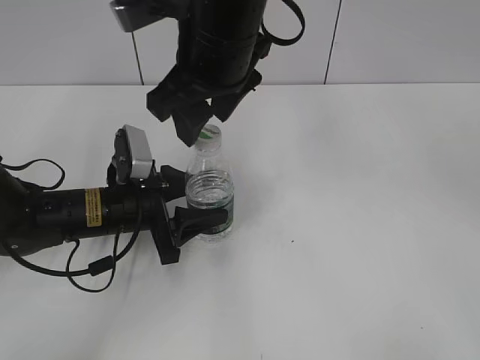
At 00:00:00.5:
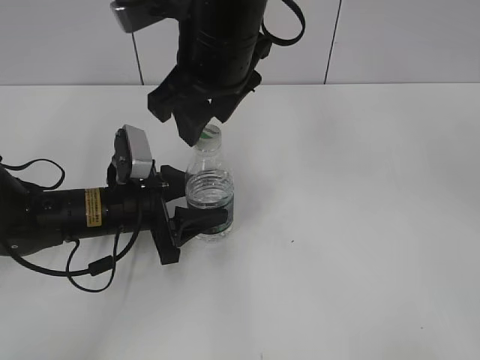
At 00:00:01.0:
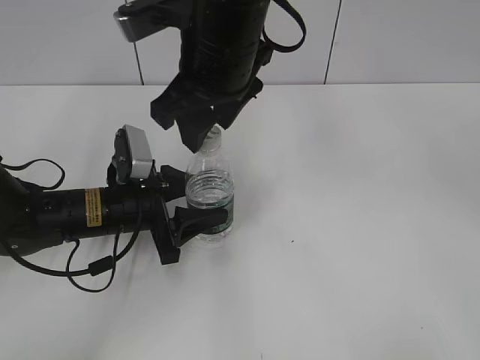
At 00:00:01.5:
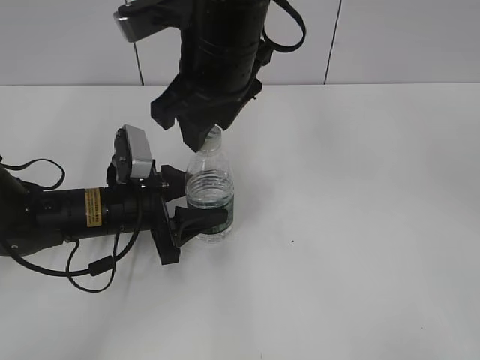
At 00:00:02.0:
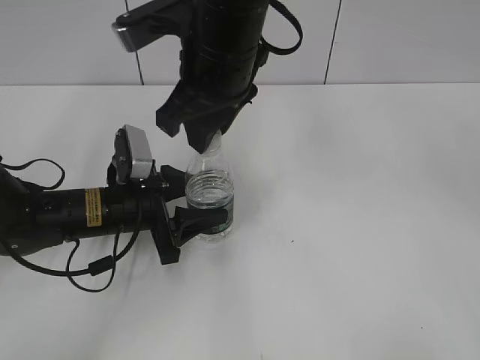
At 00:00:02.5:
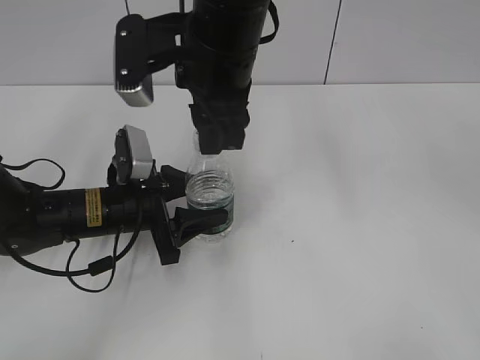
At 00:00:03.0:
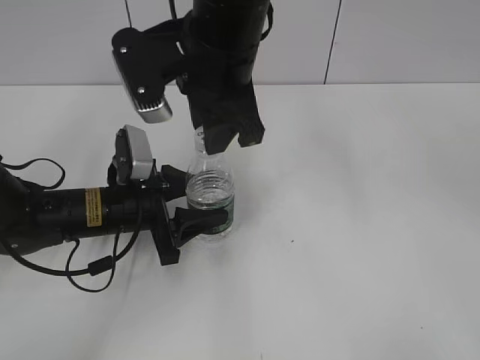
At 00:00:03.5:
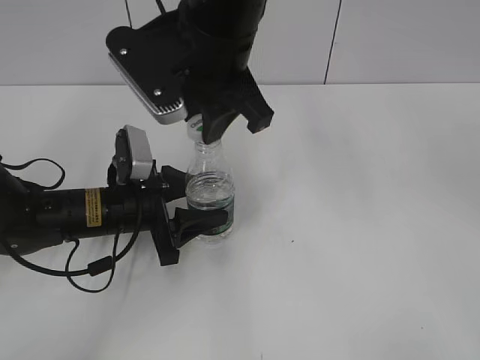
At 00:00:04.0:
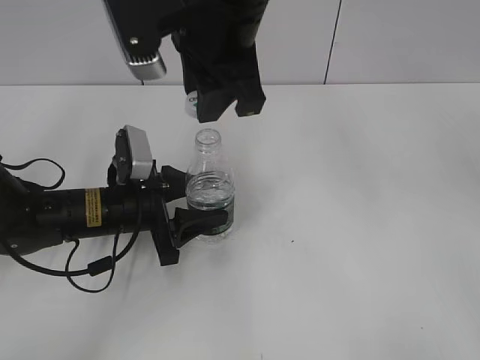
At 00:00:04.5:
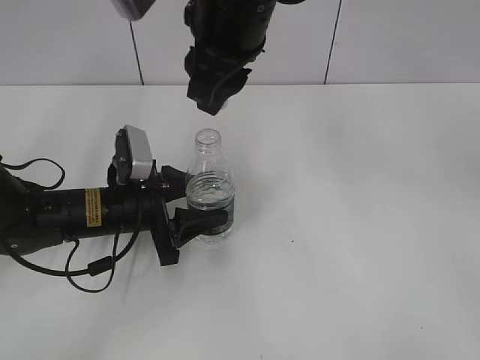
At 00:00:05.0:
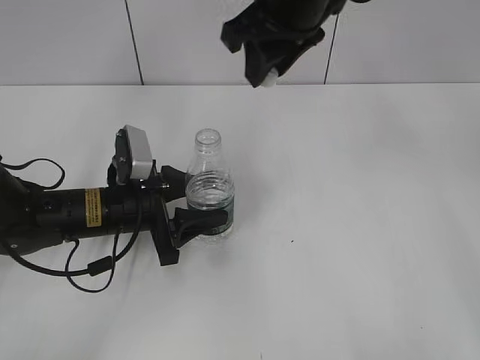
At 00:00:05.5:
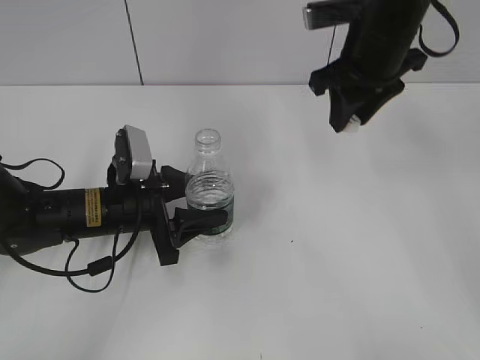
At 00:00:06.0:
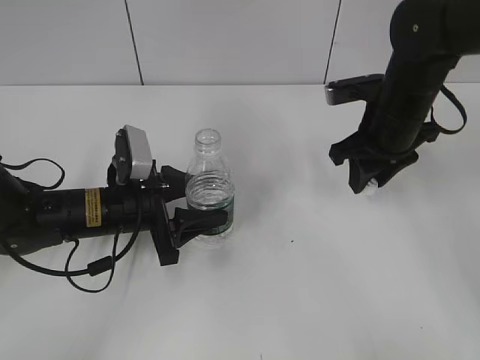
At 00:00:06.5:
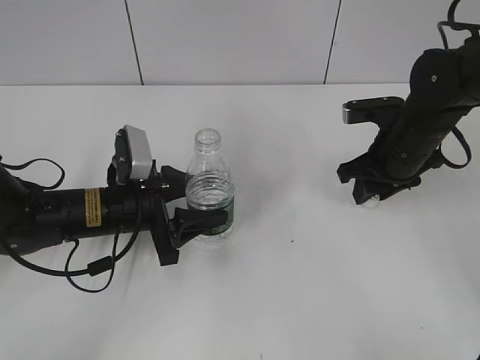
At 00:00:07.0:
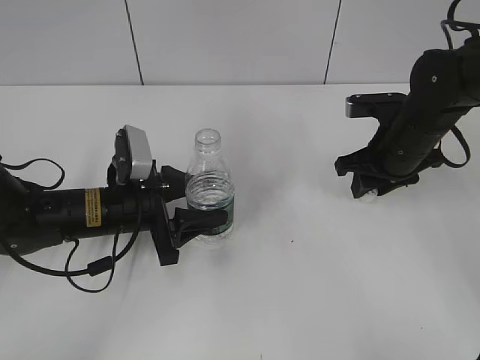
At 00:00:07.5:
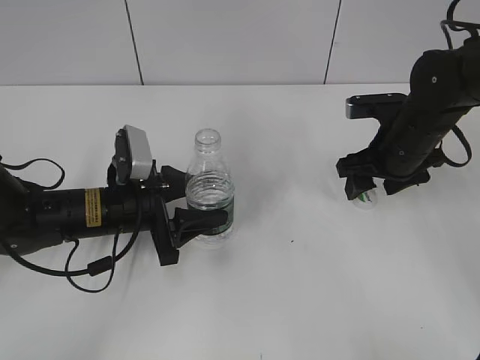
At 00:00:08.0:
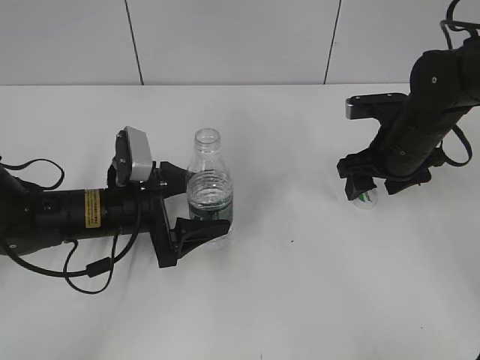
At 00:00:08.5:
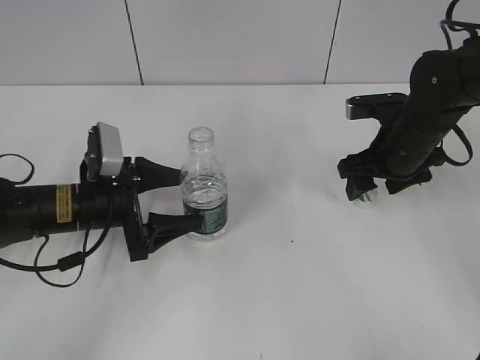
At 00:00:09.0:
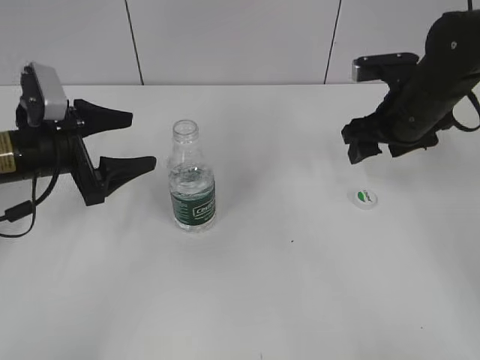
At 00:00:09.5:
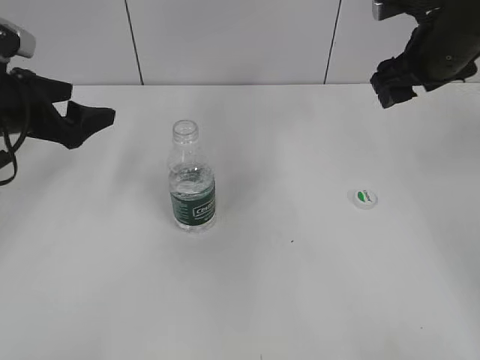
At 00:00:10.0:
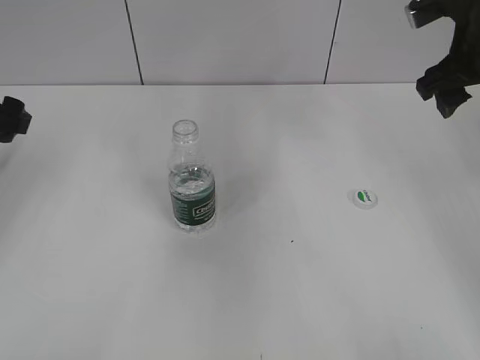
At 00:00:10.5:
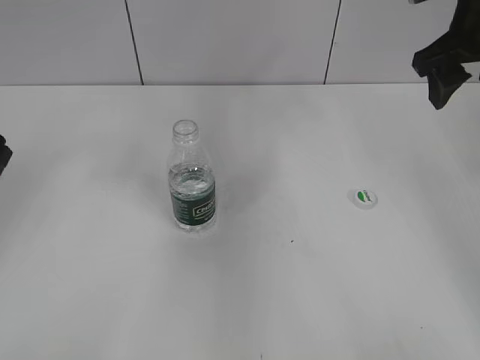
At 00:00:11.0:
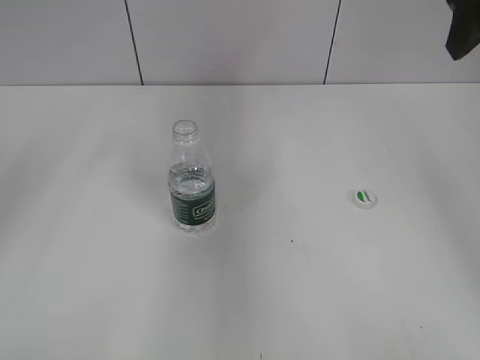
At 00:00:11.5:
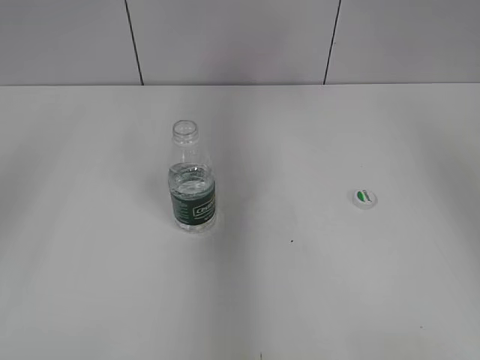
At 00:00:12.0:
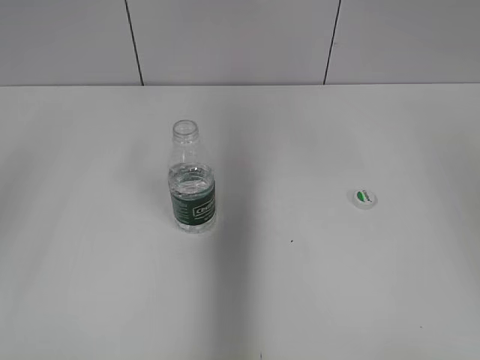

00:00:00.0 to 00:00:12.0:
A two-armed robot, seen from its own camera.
Step, 00:00:00.0 to 00:00:04.0: Unscrew the bottle cap with the right gripper while holding the bottle with the left gripper.
Step, 00:00:04.5 to 00:00:07.0: Place the bottle cap on the table with the right gripper.
Step, 00:00:07.5 to 00:00:08.5: Place the bottle on the table with the left gripper.
00:00:00.0 to 00:00:02.0: The right gripper closes up.
00:00:04.0 to 00:00:06.0: The right gripper travels to the right and downward by roughly 25 cm.
00:00:06.0 to 00:00:08.0: The right gripper opens; the left gripper opens up.
00:00:08.0 to 00:00:10.0: The right gripper travels upward by roughly 15 cm. Meanwhile the left gripper goes roughly 20 cm to the left and upward.
00:00:10.0 to 00:00:12.0: The left gripper heads upward and backward, covering some 20 cm, while the right gripper goes some 20 cm backward, upward and to the right.

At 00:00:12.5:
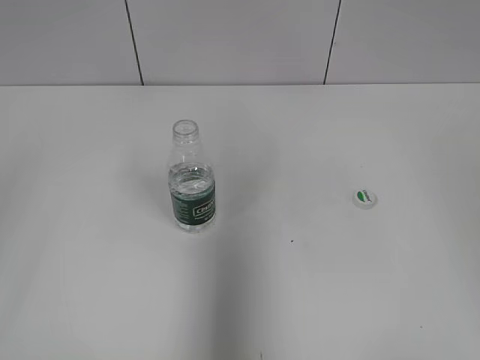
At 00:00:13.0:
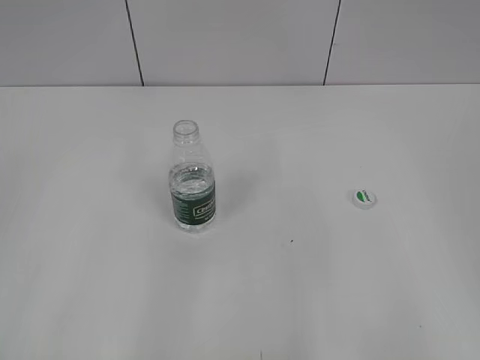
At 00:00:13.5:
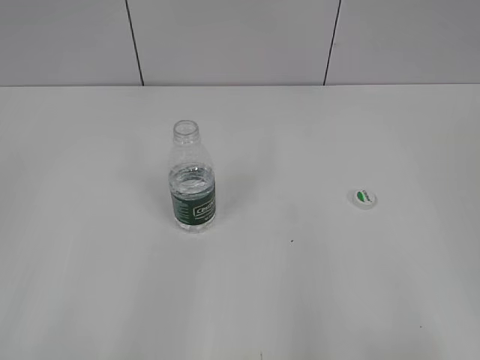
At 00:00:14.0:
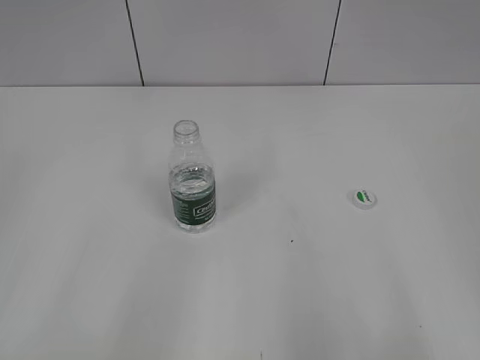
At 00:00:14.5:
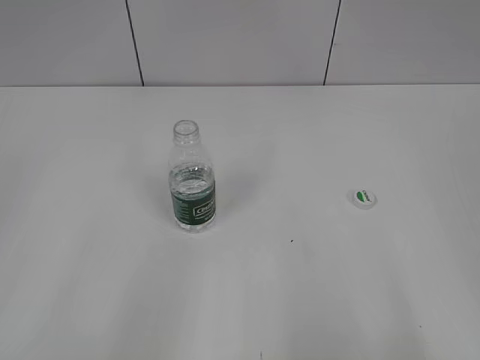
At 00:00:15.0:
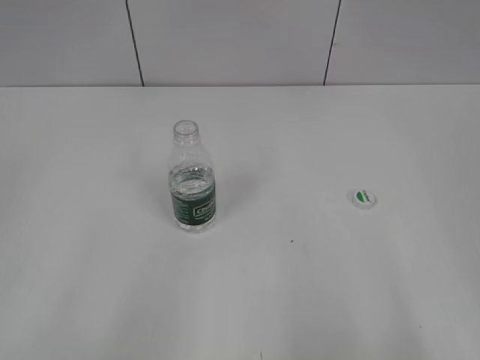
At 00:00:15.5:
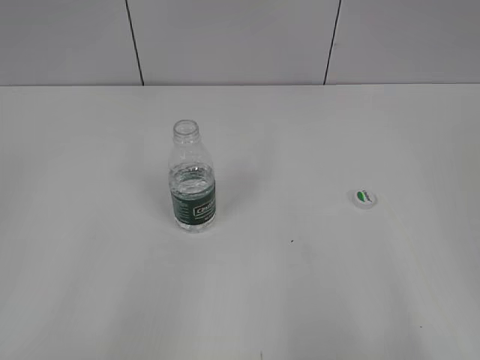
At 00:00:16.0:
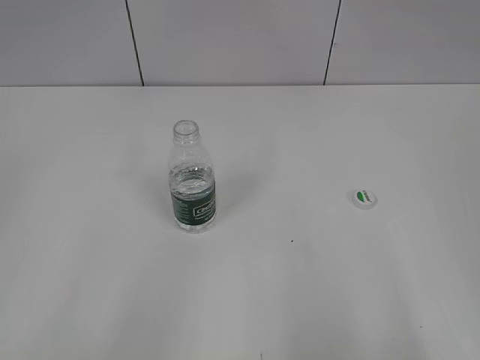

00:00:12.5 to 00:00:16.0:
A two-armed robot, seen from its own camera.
00:00:12.5 to 00:00:14.5: The grippers both shift backward and downward by approximately 15 cm.
00:00:14.5 to 00:00:16.0: The two grippers keep their place.

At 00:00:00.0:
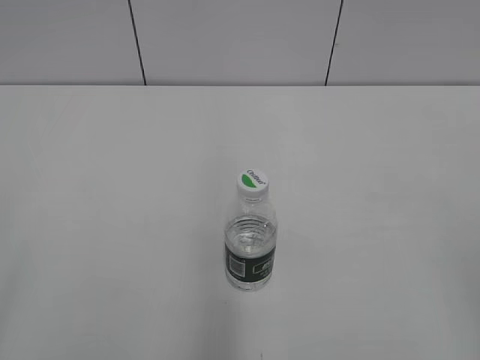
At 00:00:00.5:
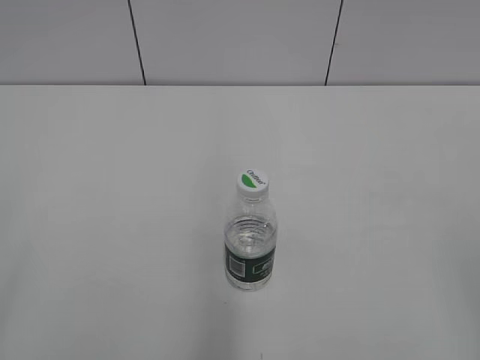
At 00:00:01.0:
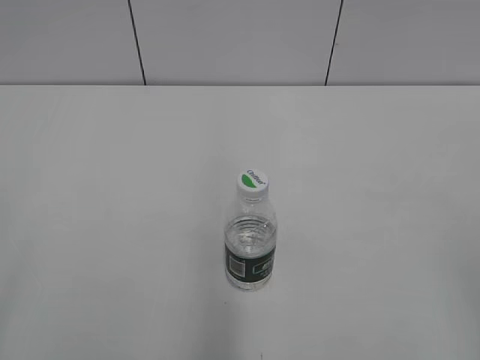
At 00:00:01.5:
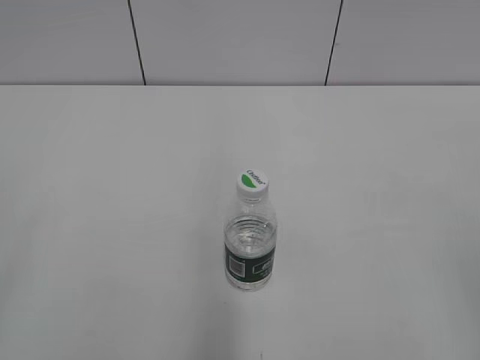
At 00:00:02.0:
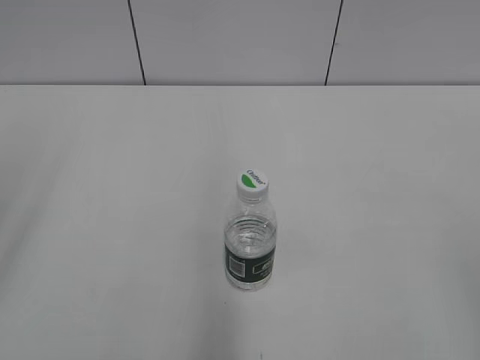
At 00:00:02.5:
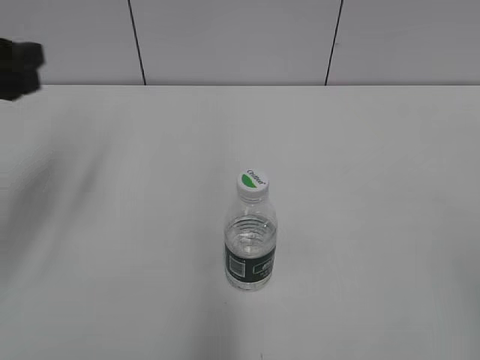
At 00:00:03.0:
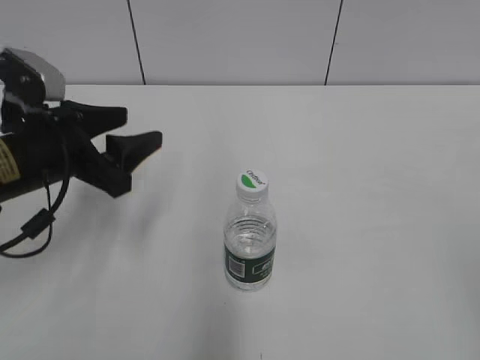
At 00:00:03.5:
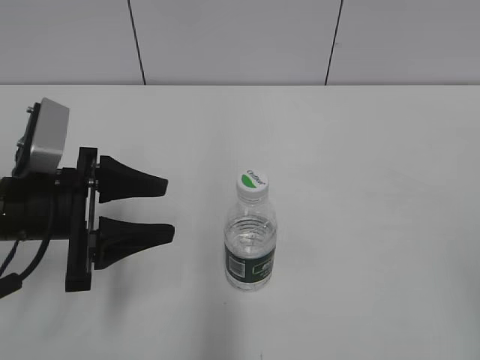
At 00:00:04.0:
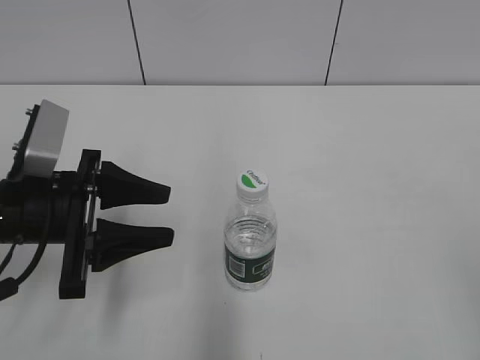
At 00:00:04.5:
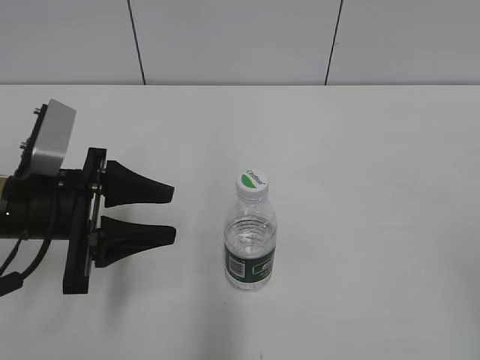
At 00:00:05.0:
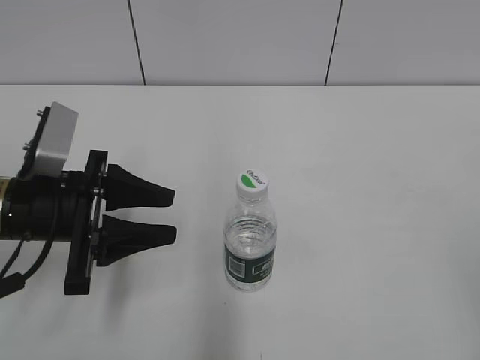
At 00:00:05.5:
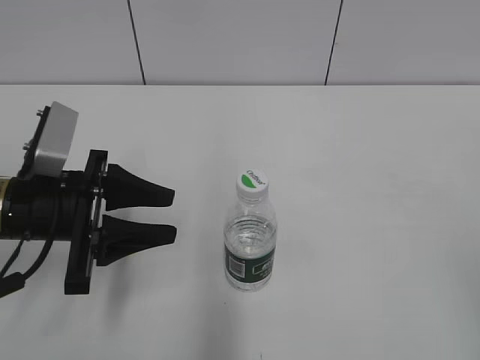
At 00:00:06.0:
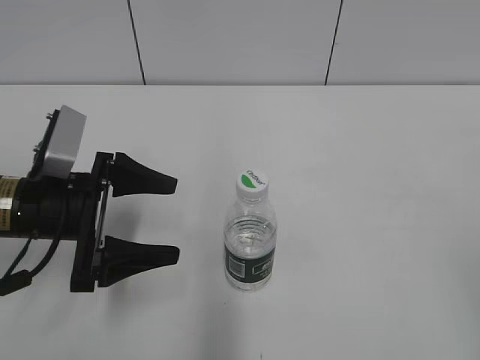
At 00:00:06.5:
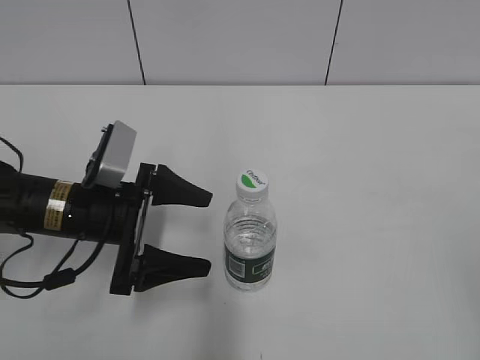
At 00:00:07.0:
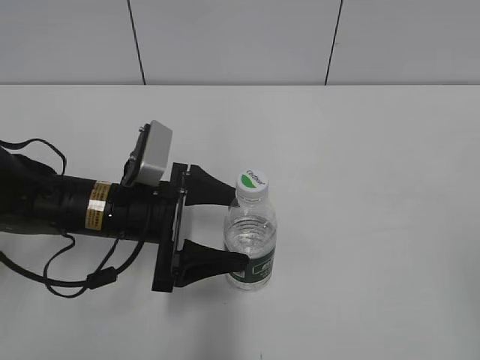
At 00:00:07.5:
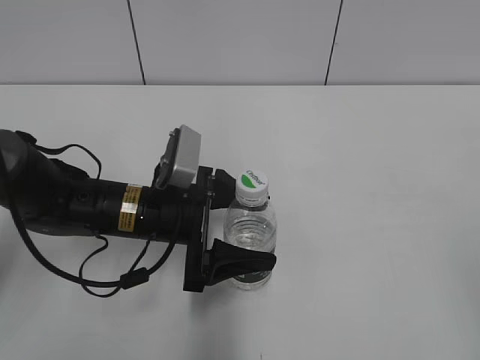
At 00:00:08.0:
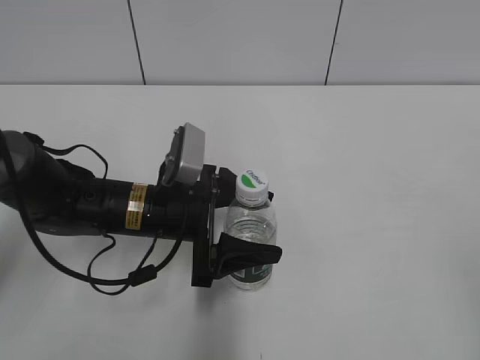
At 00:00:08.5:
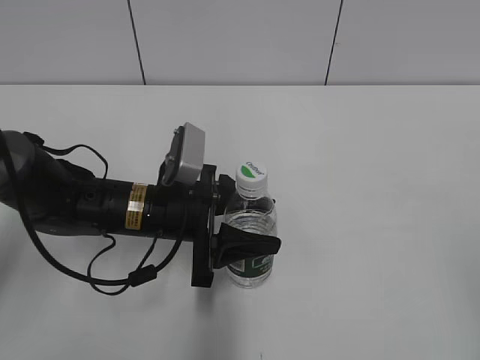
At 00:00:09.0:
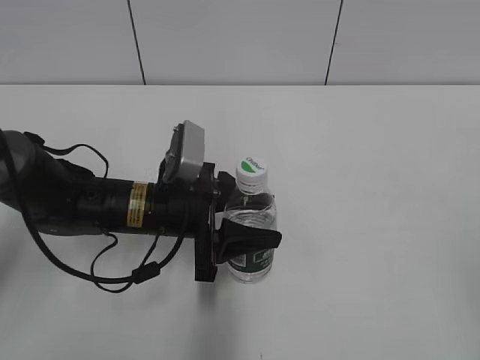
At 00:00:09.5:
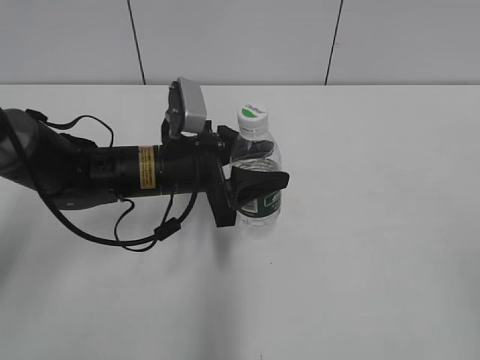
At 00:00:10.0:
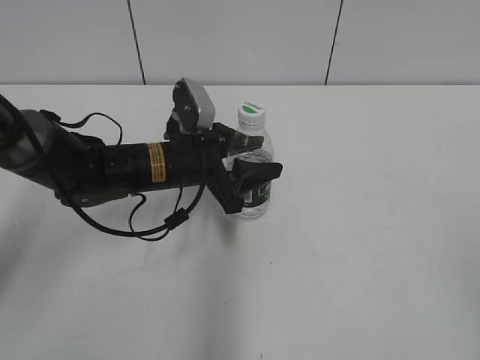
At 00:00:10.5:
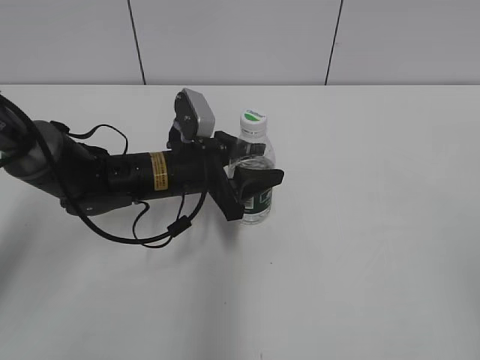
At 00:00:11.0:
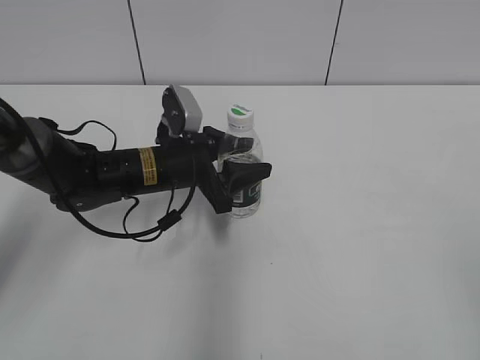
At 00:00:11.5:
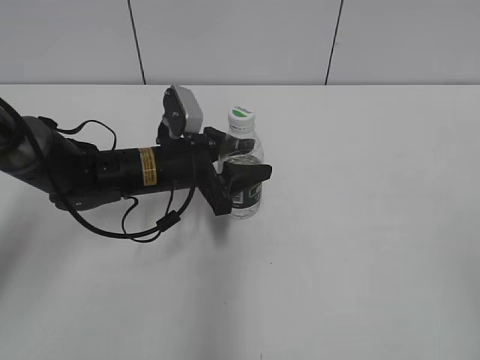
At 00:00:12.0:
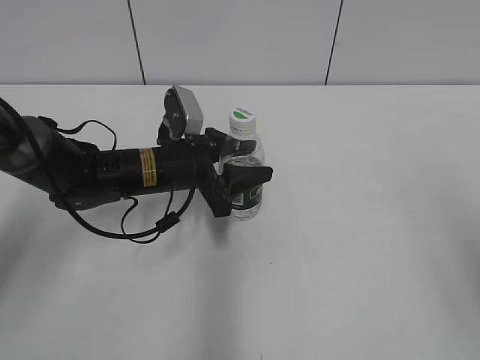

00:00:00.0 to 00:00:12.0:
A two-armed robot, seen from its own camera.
Step, 00:00:00.0 to 00:00:08.0: Grasp the bottle and move it to the center of the table with the left gripper.
Step, 00:00:08.5 to 00:00:11.5: Lift the bottle and move it to the center of the table with the left gripper.
00:00:02.0 to 00:00:04.0: The left gripper travels downward, forward and to the right by some 25 cm.
00:00:04.0 to 00:00:06.0: The left gripper opens.
00:00:06.0 to 00:00:08.0: The left gripper heads to the right, covering some 10 cm.
00:00:08.0 to 00:00:10.0: The left gripper shifts some 5 cm forward, and closes up.
00:00:10.0 to 00:00:12.0: The right gripper moves forward, roughly 10 cm.
